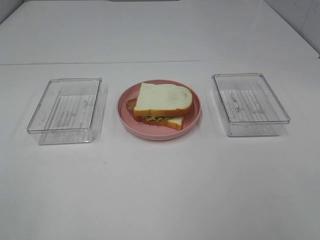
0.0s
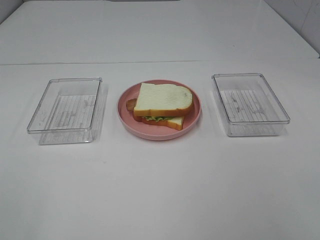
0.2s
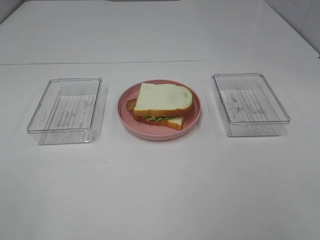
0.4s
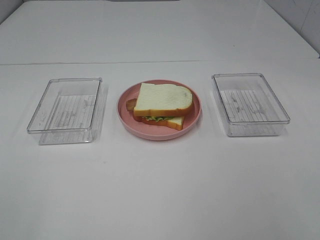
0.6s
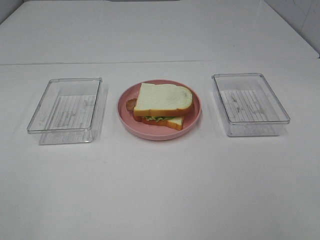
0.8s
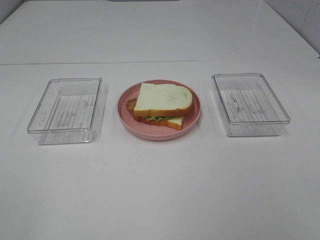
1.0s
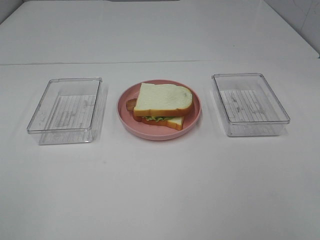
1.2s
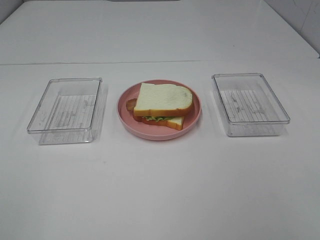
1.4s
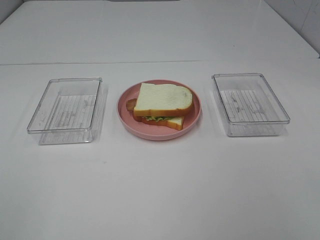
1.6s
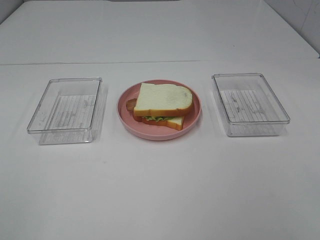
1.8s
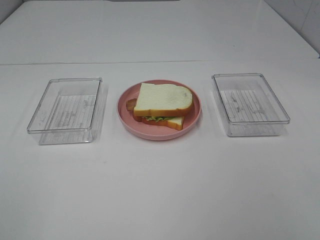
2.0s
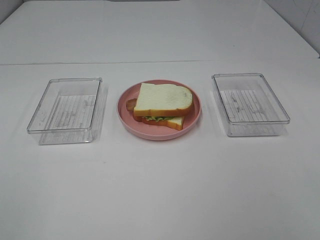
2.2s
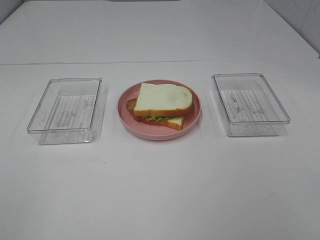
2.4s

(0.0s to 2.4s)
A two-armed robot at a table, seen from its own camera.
Task of the whole recording: Make sandwiches.
1.2s - 2.4s: Both grippers stay put.

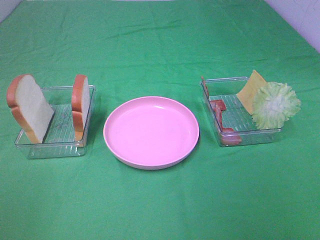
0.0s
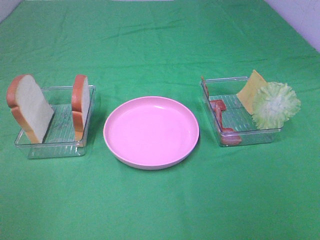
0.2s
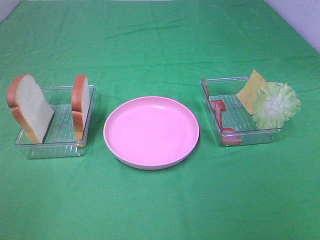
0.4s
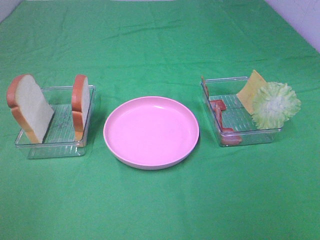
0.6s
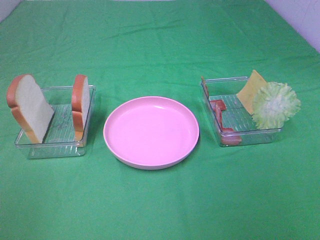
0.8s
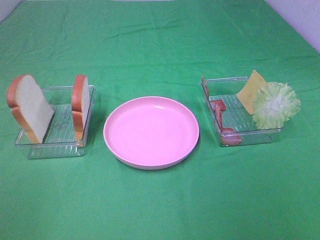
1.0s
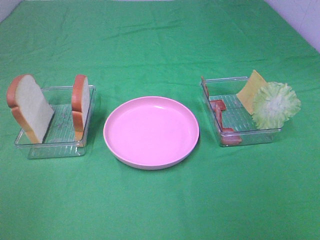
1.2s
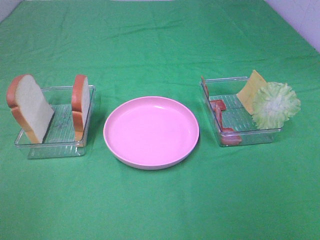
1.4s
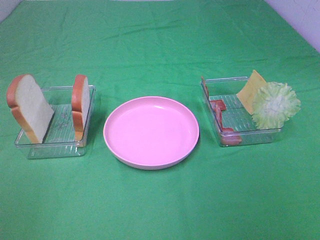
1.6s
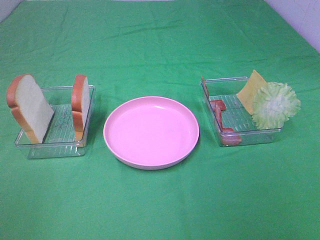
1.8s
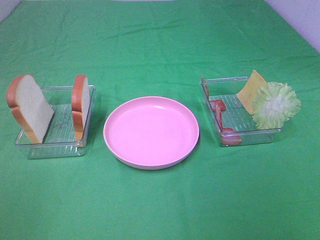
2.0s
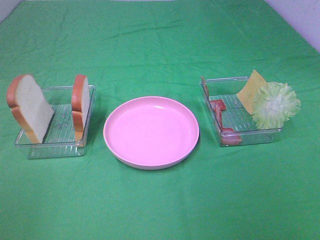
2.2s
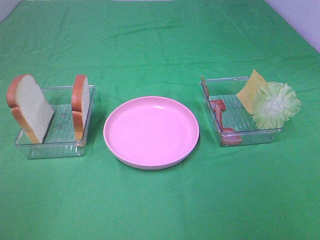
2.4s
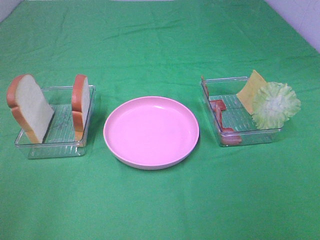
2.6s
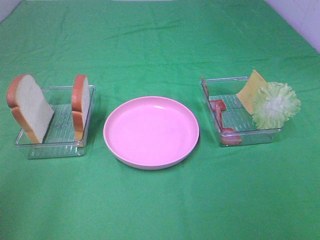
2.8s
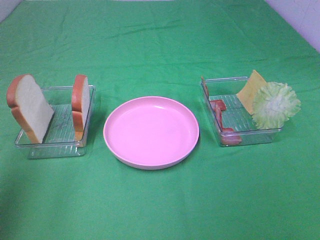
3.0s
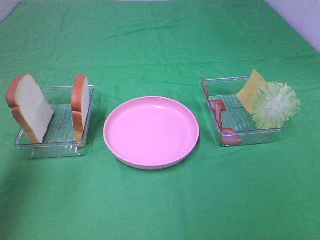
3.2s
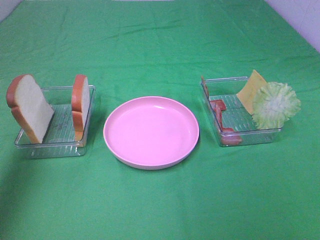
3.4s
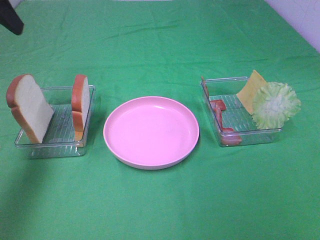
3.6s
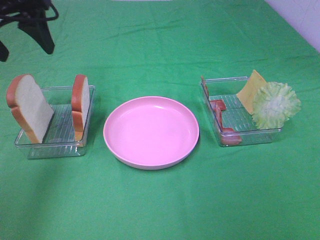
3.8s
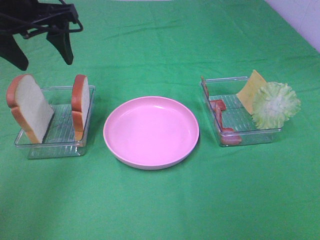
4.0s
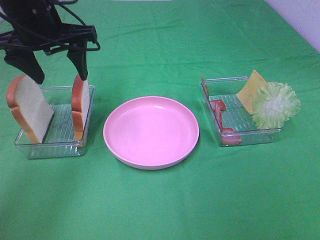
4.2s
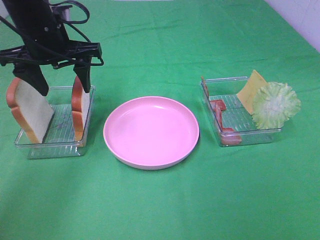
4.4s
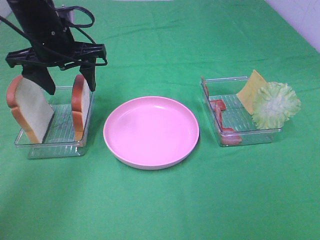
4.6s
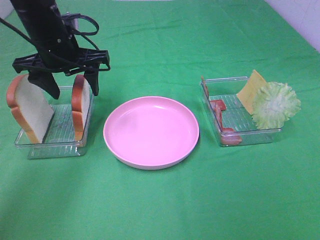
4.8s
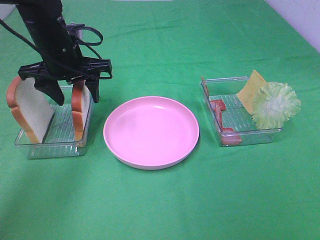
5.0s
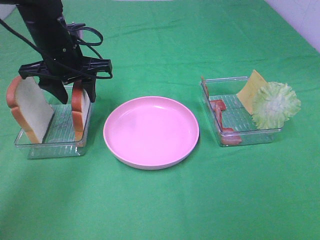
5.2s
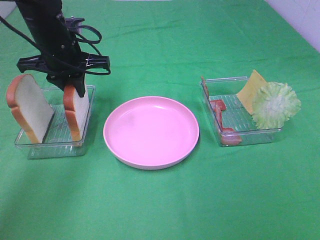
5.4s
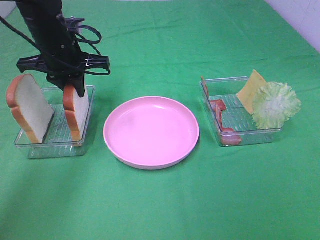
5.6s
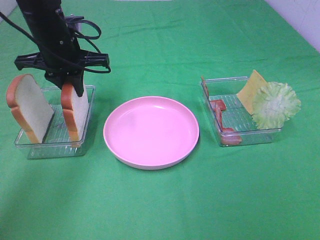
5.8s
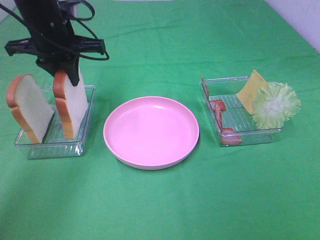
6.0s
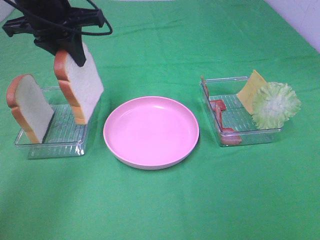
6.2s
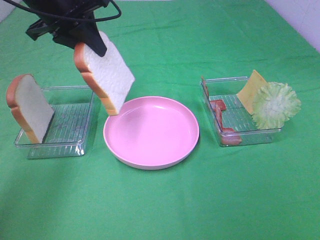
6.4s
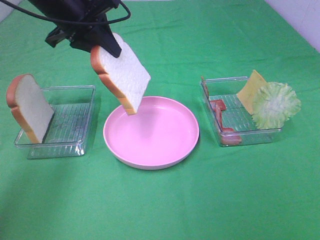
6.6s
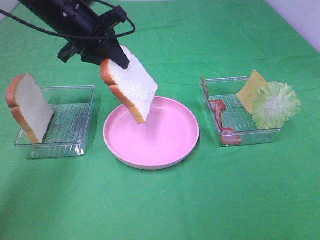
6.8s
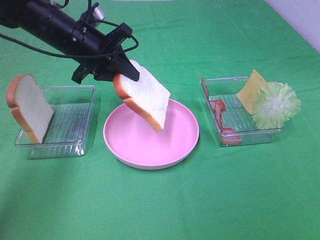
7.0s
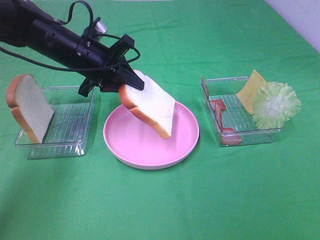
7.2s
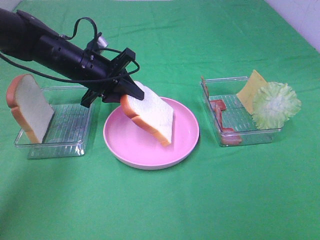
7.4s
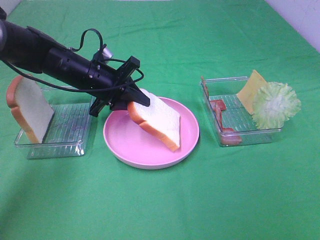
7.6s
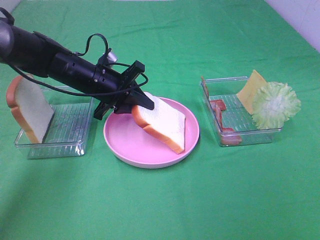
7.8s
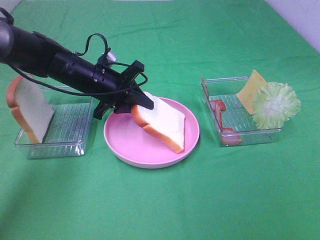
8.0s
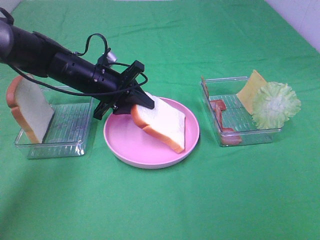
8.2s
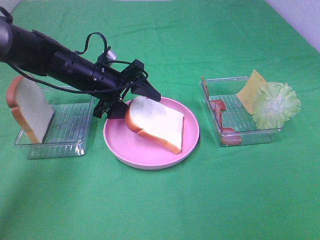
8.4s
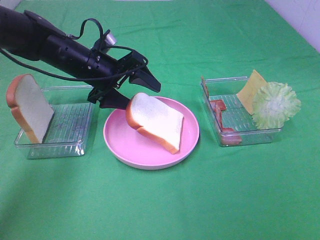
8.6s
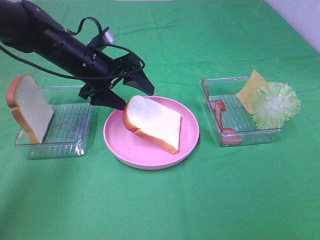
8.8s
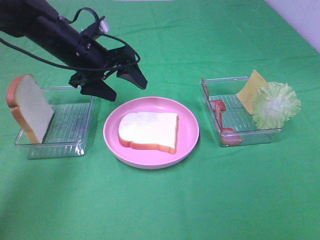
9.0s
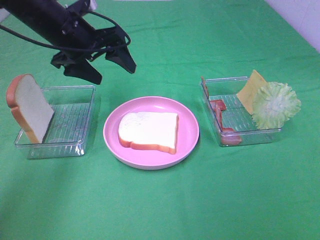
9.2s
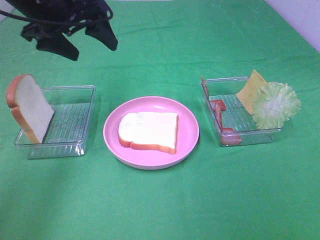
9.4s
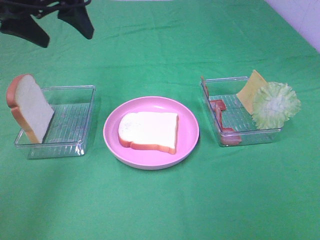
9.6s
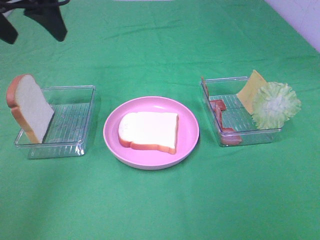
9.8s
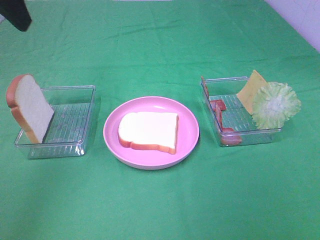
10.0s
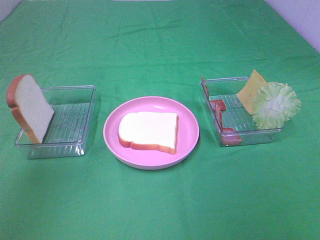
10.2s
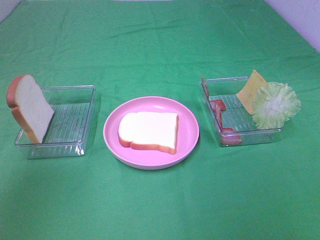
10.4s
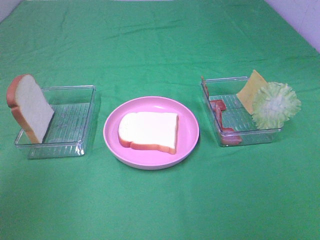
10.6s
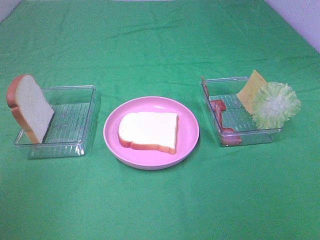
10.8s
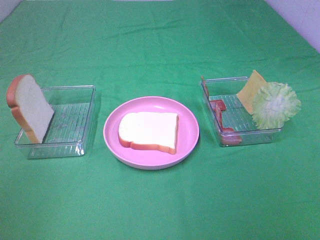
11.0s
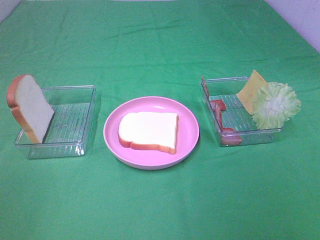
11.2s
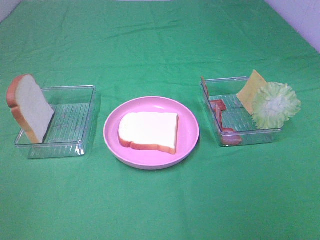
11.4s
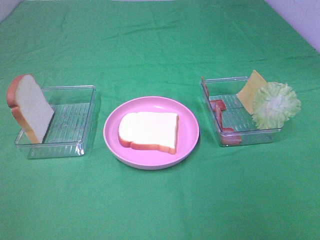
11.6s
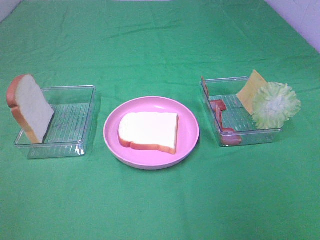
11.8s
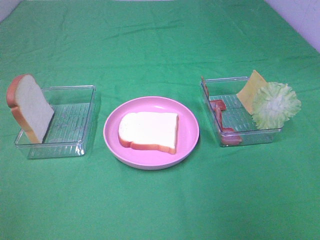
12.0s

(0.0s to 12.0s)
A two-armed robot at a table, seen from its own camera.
Task of the whole recording: Make sandwiches.
Step, 0.0s - 5.6s: Left hand:grab the bread slice.
Step, 5.8s - 9.0s: Left hand:place the bread slice on the plate.
0.0s - 1.6s: Both grippers stay about where they are.
1.6s - 3.0s: The left gripper moves forward and upward, roughly 15 cm.
3.0s - 4.4s: The left gripper shifts roughly 30 cm forward, to the right and downward.
4.4s - 6.0s: The left gripper closes up.
6.0s - 7.6s: The left gripper goes about 15 cm downward.
7.6s - 9.0s: The left gripper shifts approximately 5 cm upward, and opens its fingers.
9.0s - 10.4s: The left gripper goes roughly 30 cm backward, upward and to the left.
10.4s - 12.0s: The left gripper moves backward and downward, approximately 25 cm.

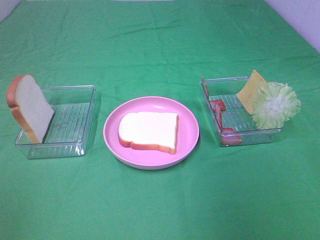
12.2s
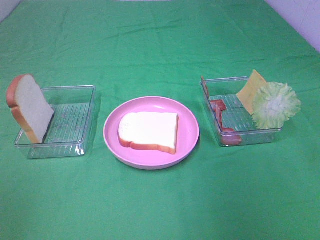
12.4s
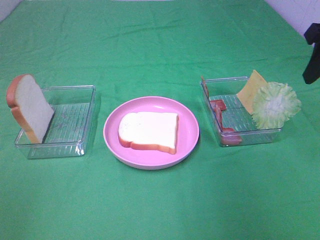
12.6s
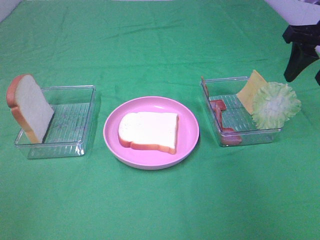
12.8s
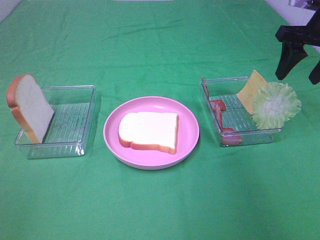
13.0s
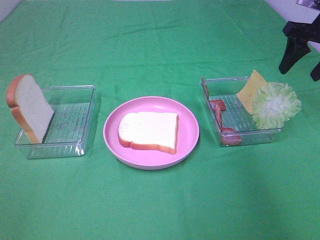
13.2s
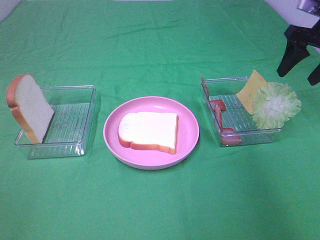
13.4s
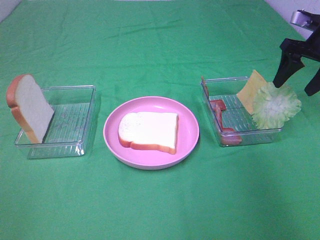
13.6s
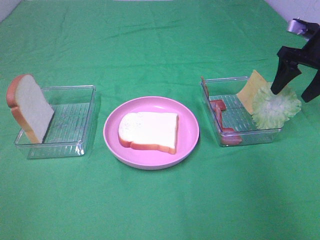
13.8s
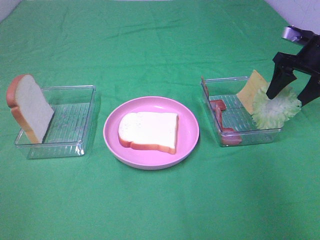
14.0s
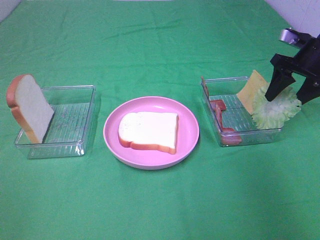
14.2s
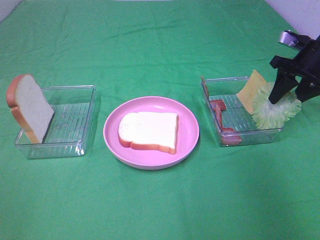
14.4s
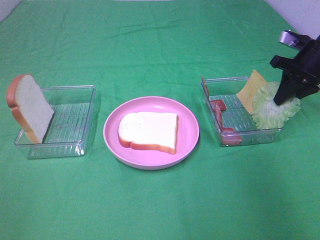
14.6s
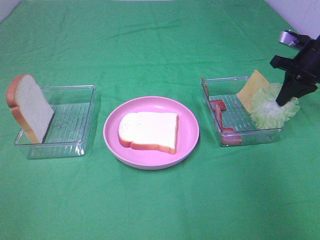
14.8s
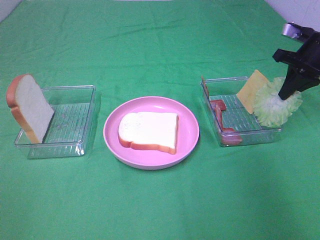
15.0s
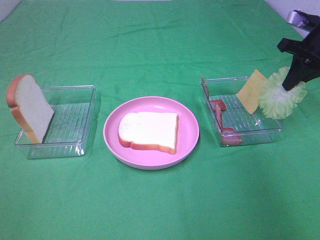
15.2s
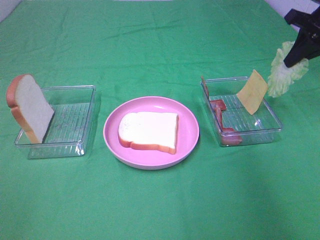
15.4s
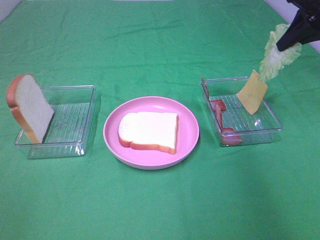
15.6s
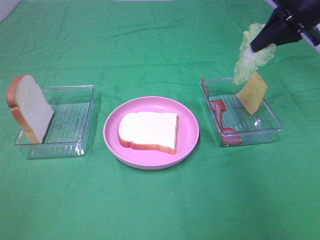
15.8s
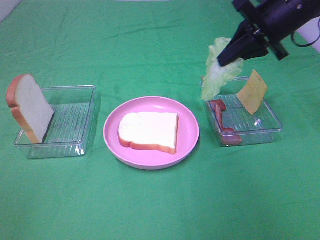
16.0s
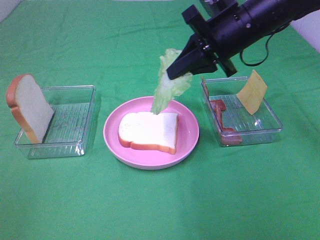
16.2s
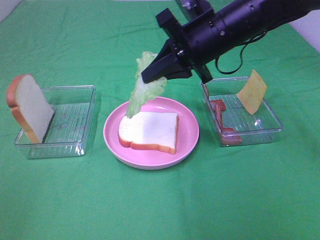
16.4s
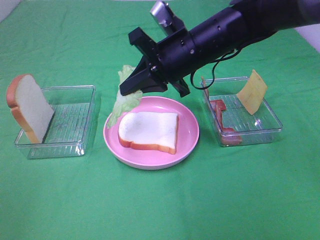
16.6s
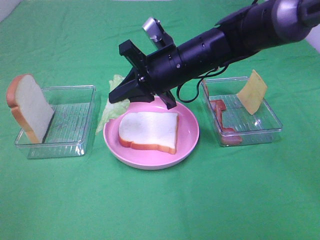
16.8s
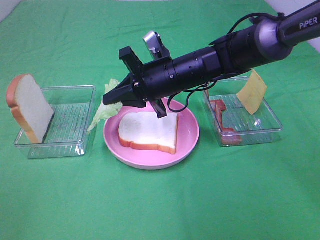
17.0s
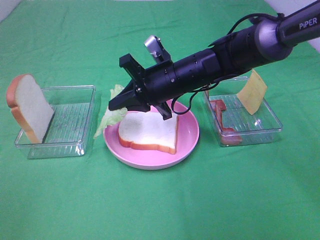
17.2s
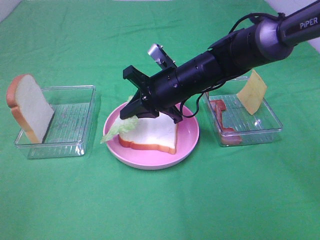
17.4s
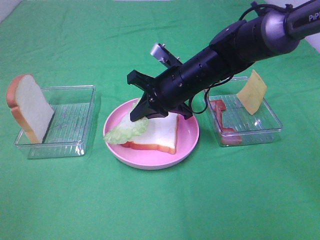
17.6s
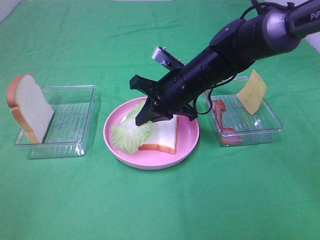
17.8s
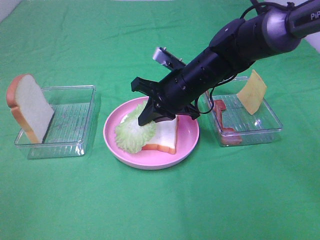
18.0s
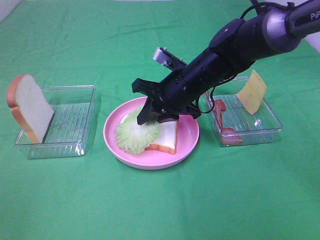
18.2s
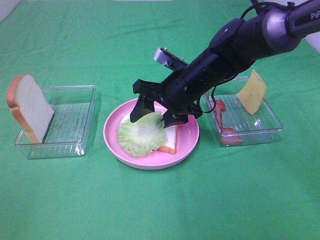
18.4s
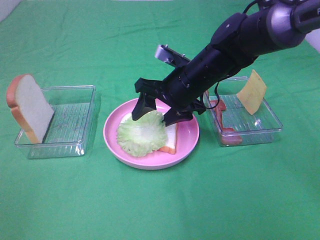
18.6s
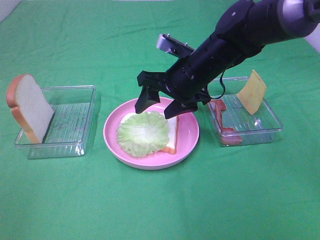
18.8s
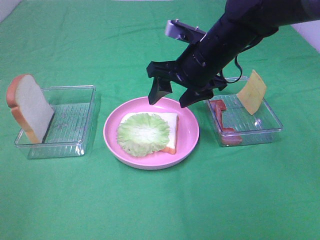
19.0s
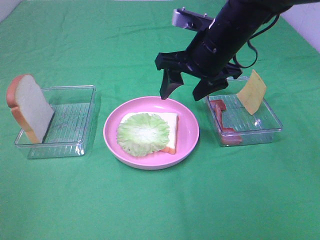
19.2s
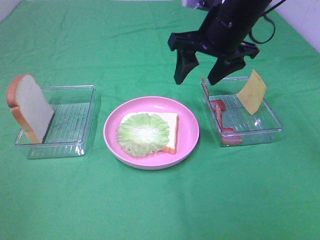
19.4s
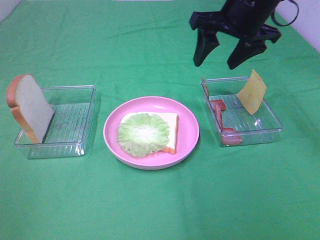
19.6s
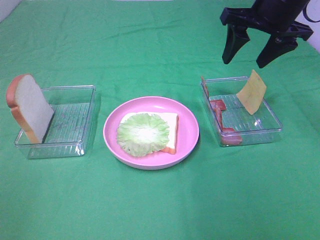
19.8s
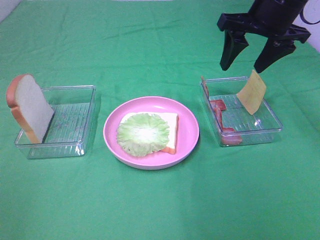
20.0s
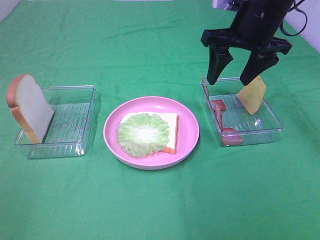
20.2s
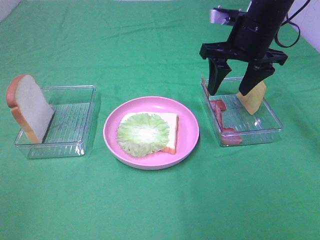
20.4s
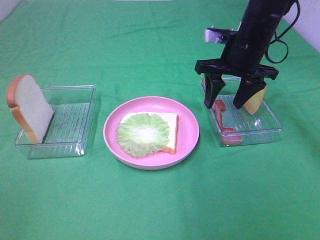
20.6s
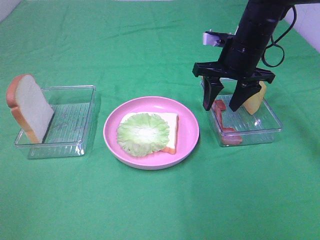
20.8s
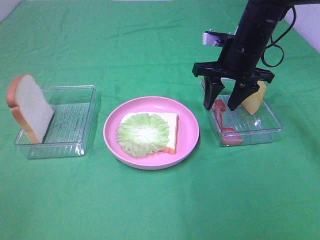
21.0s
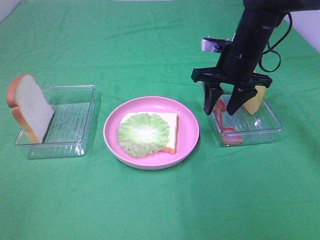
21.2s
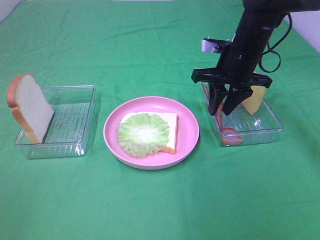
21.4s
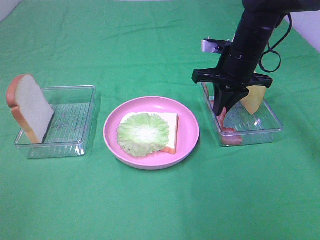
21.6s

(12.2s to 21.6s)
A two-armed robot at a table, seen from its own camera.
Task of the whole recording: Make sandwiches.
Step, 12.2s - 14.8s: Right hand:grab the lettuce slice.
Step, 15.0s - 18.8s: Right hand:place the lettuce slice on the bread slice.
12.2s - 13.8s: The right gripper moves forward and downward, about 25 cm.
13.8s - 15.4s: The right gripper is displaced upward by about 5 cm, and closes its fingers.
15.4s - 17.0s: The right gripper shifts some 30 cm to the left and downward.
17.0s - 18.4s: The right gripper opens up.
18.4s - 20.0s: The right gripper is displaced upward and to the right by roughly 20 cm.
20.0s - 21.6s: The right gripper shifts roughly 10 cm downward, and closes.
